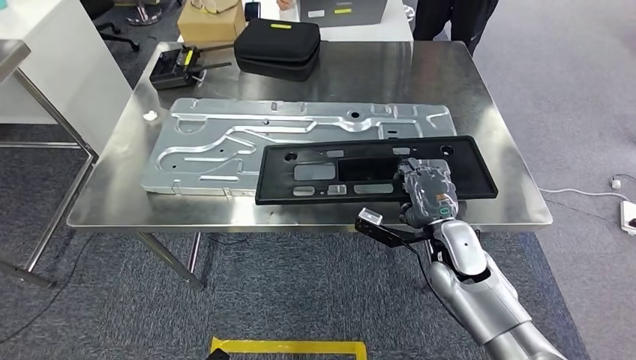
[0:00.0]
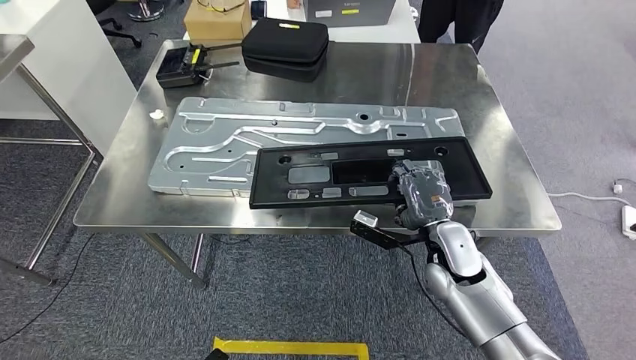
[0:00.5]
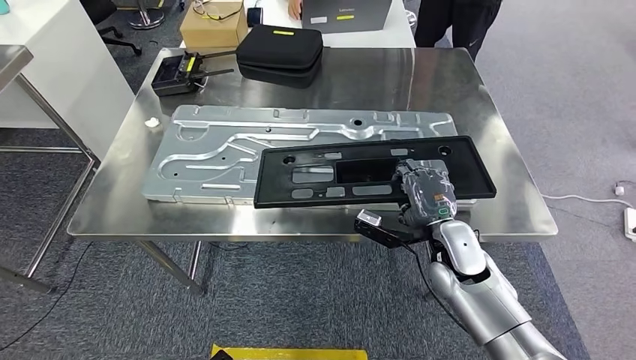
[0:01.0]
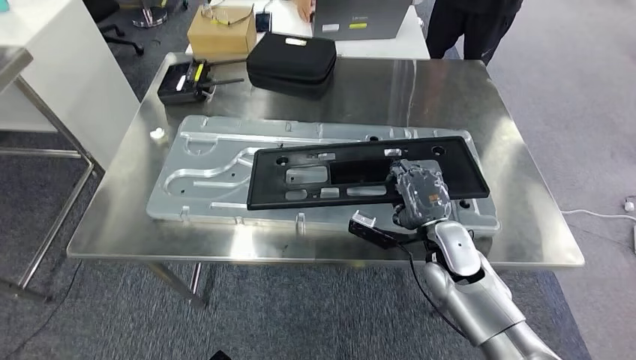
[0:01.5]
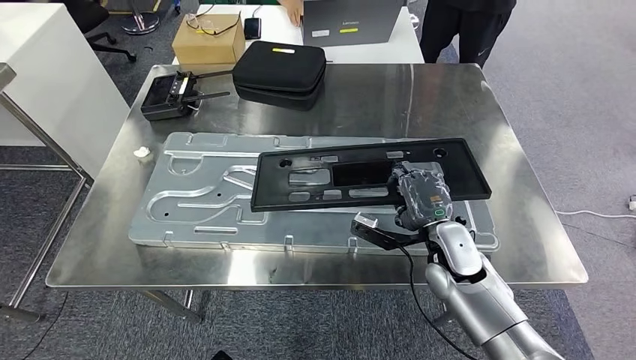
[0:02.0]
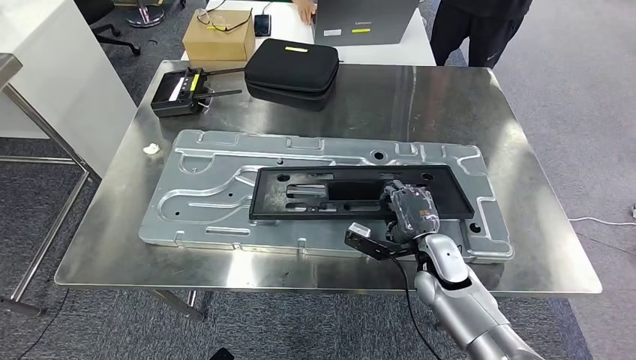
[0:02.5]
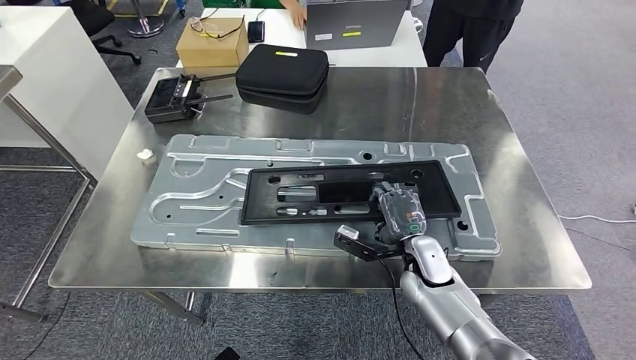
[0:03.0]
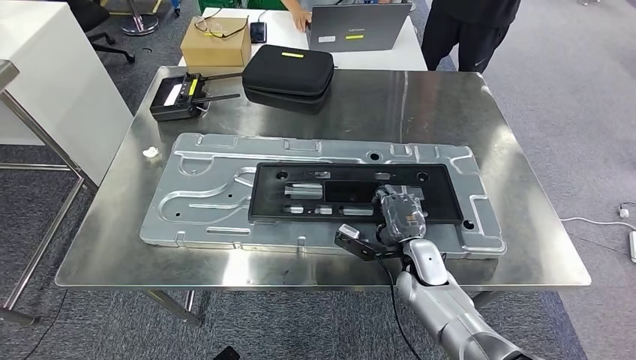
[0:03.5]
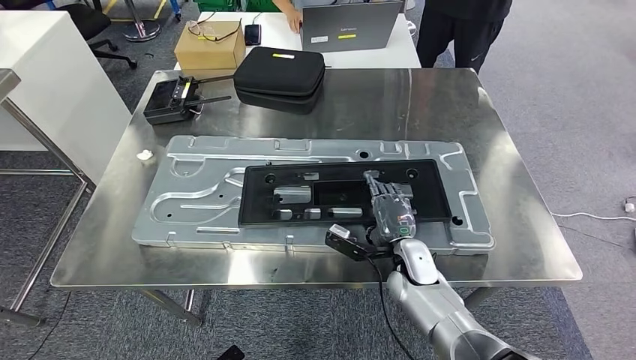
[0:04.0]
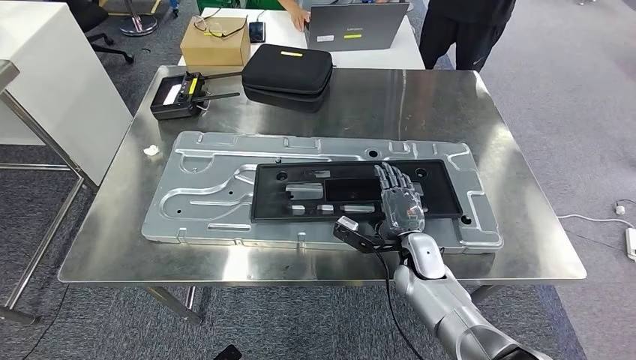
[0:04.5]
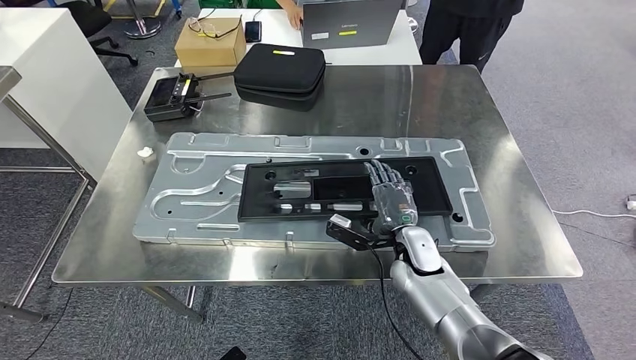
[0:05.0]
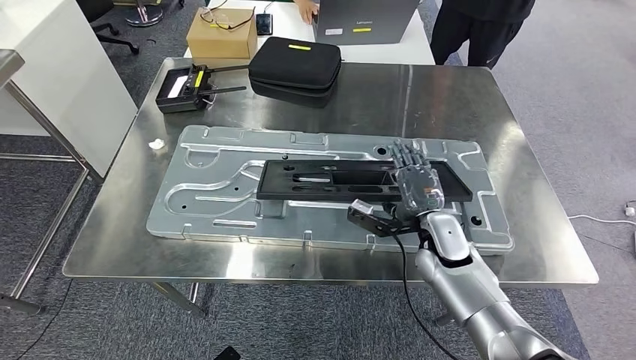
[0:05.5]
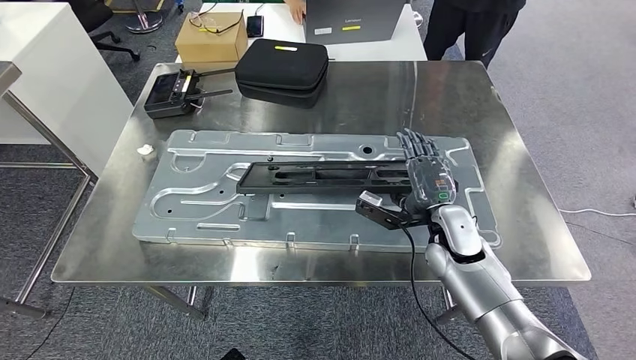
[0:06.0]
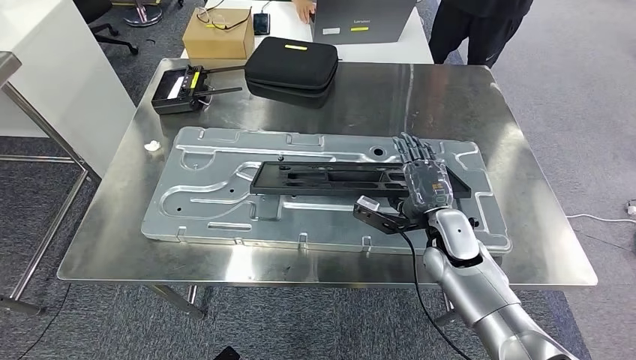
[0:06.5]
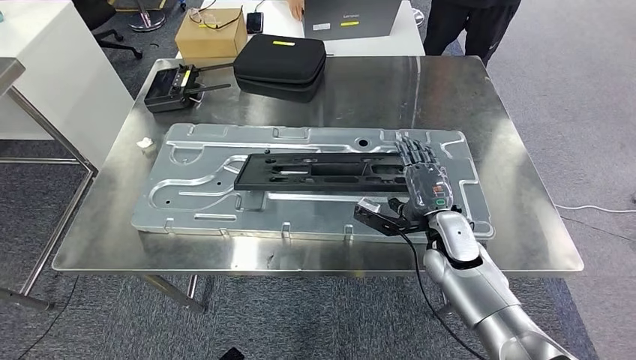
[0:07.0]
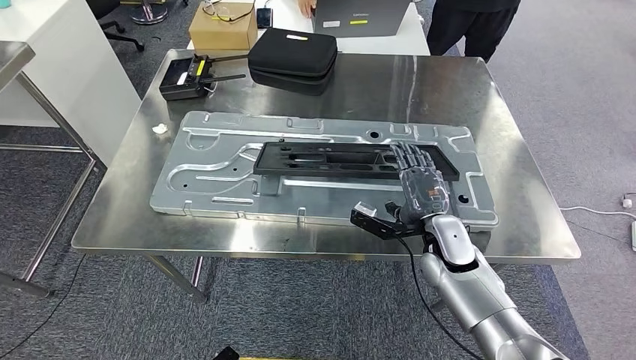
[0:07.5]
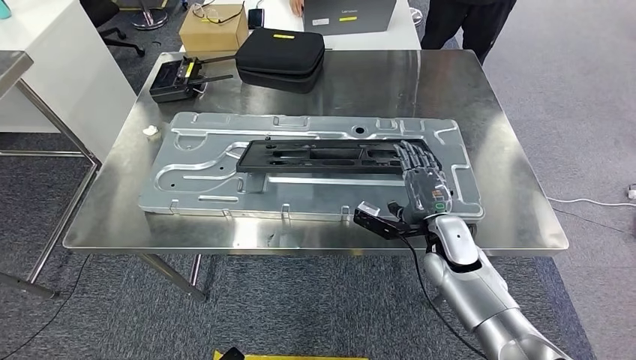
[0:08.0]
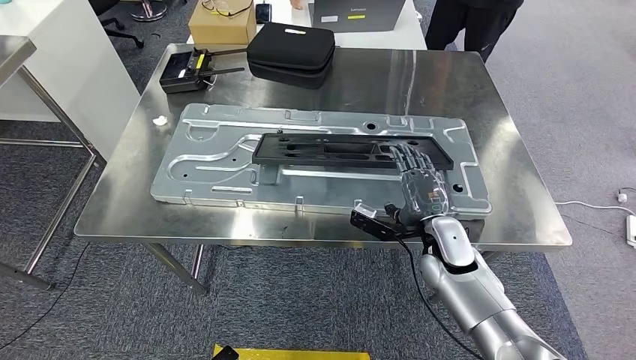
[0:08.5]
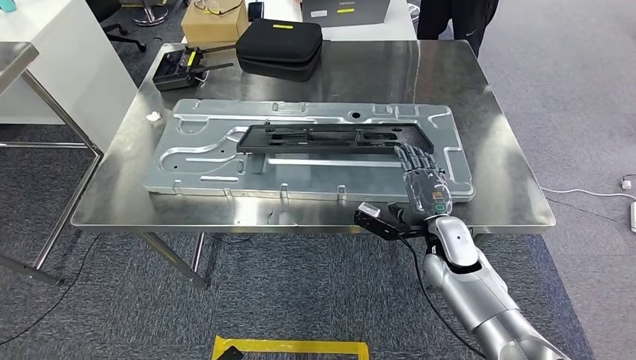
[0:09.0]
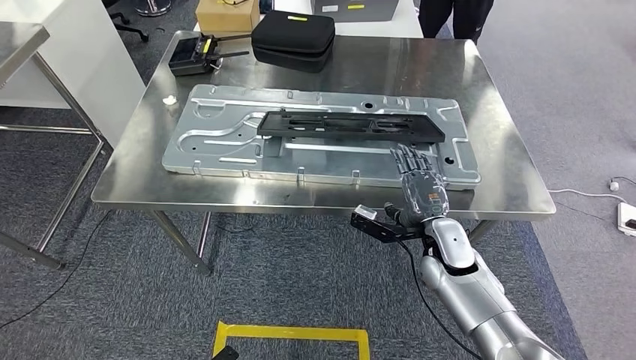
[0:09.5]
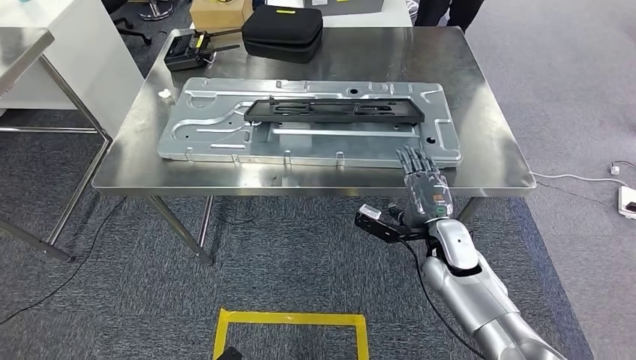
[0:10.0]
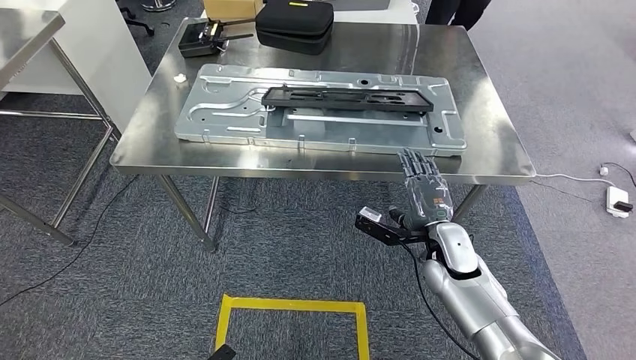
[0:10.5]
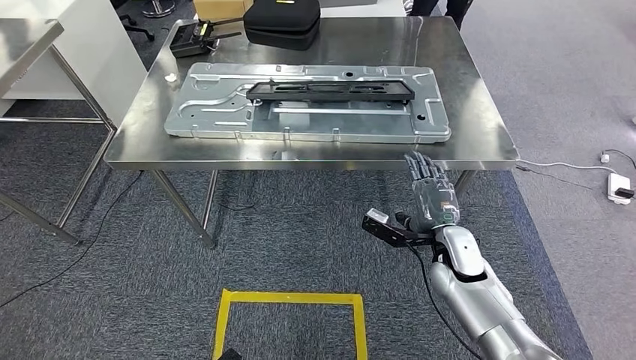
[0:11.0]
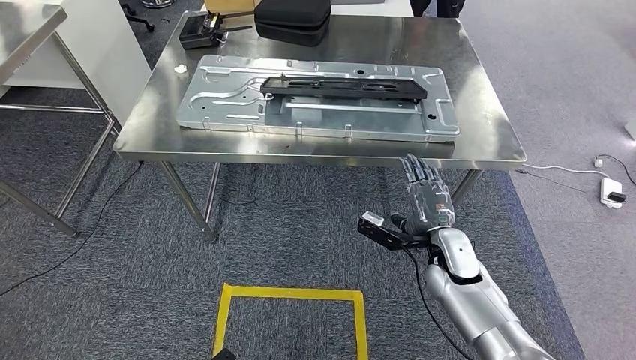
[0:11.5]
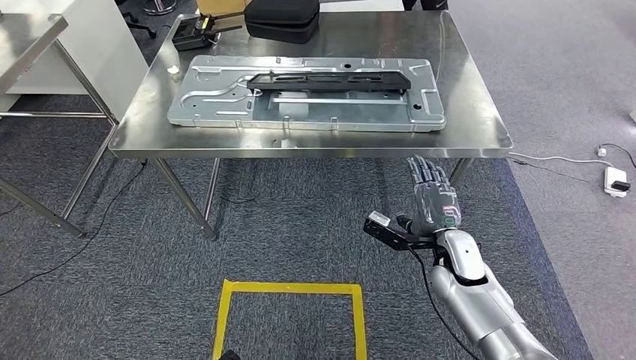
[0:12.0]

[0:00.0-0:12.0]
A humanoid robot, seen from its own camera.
Step, 0:00.0 to 0:07.5: Insert the large material into the corresponding slot on the workbench.

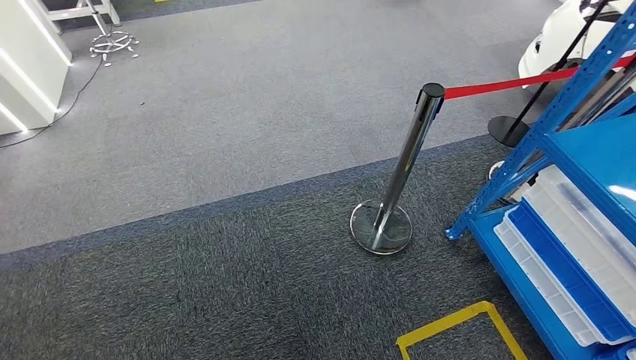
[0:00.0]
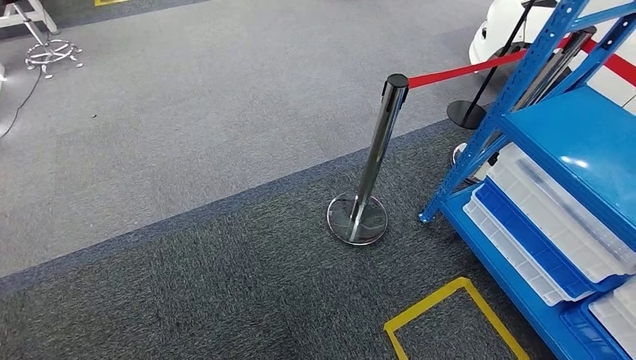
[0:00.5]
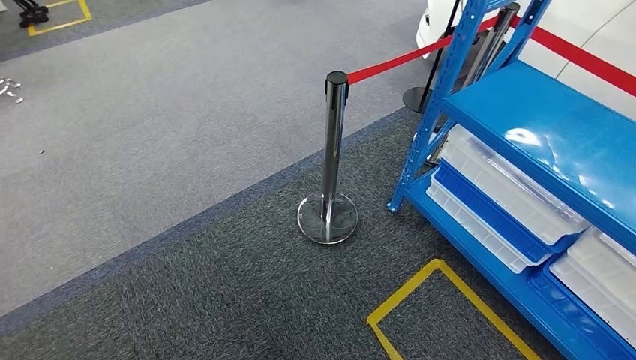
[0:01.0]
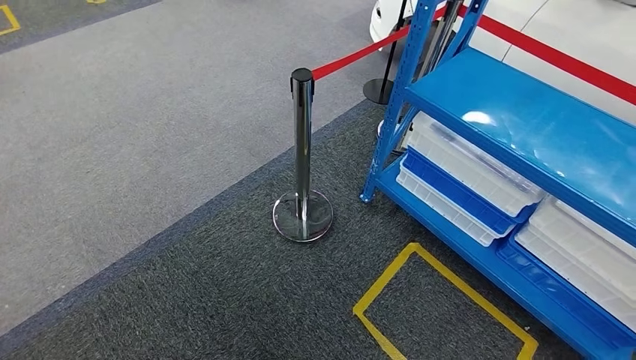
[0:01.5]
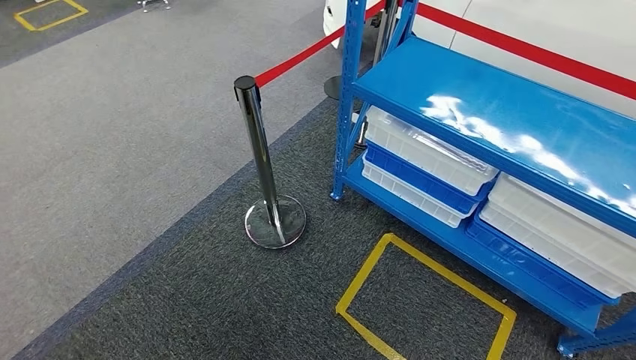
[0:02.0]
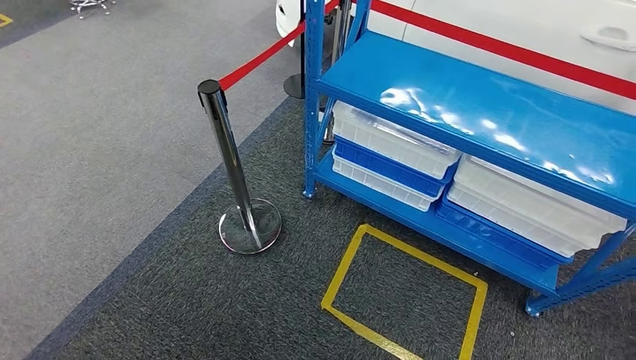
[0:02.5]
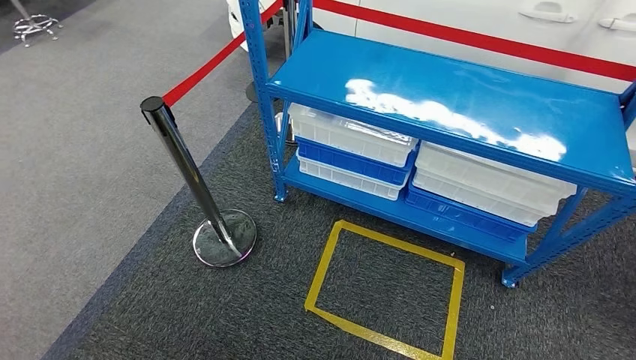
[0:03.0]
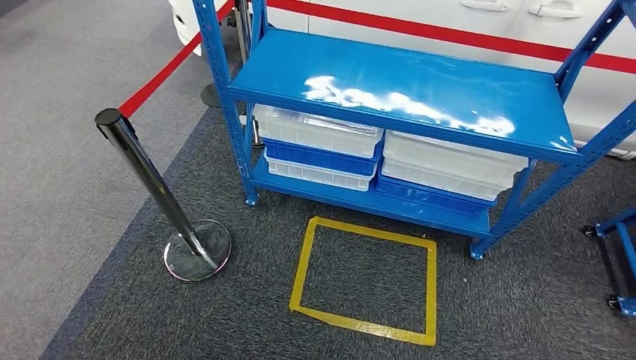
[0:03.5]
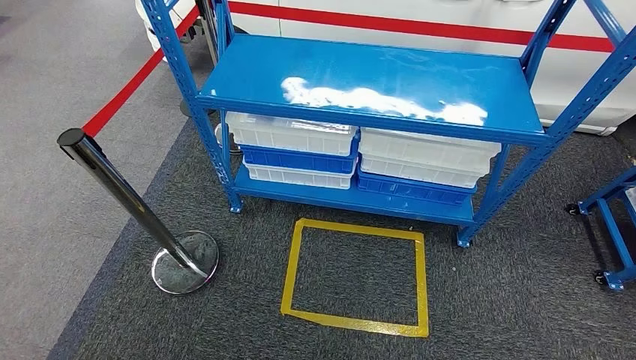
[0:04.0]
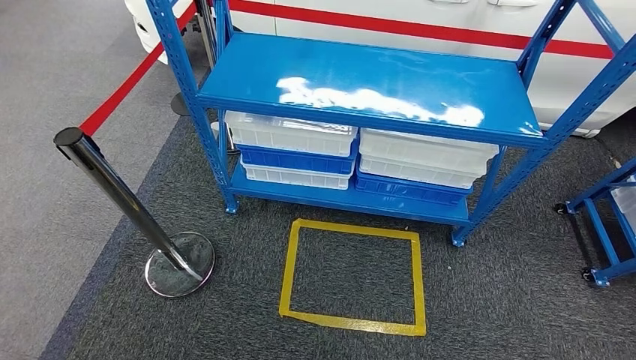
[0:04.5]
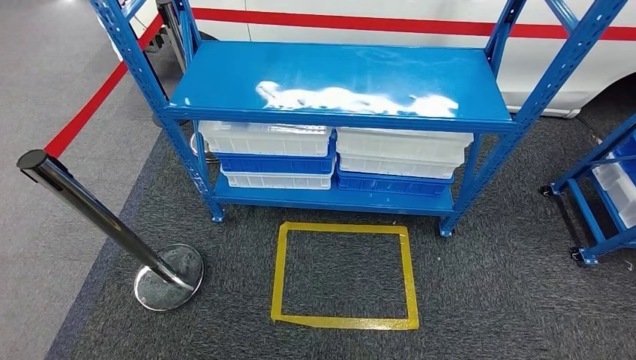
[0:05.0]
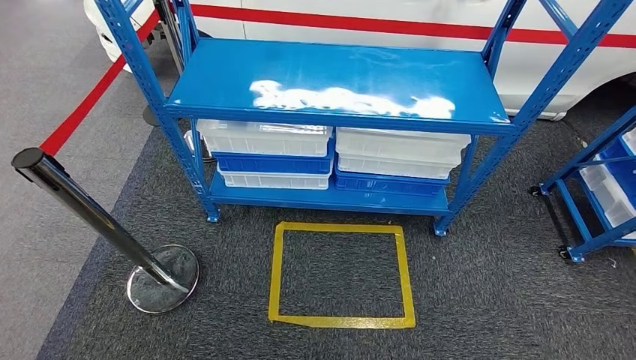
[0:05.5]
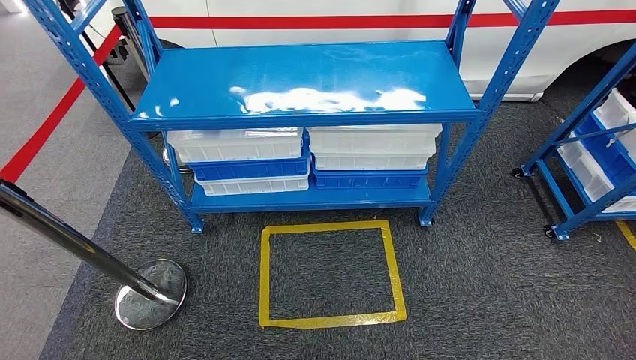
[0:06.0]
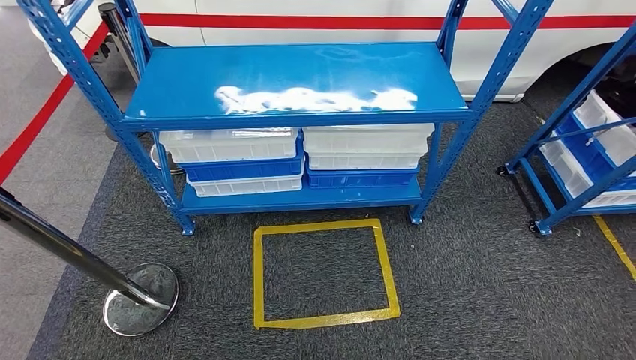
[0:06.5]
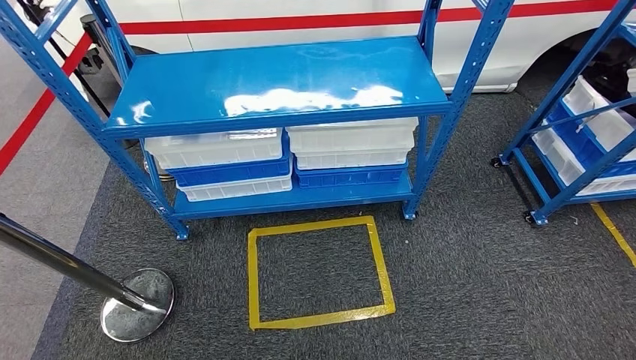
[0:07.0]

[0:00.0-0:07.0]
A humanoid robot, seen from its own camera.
Step, 0:00.0 to 0:07.0: Return to the initial position at the shelf.
